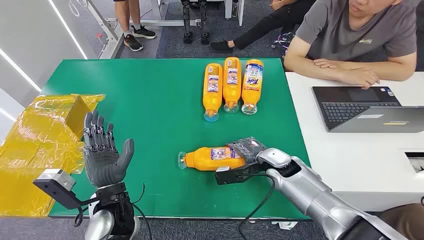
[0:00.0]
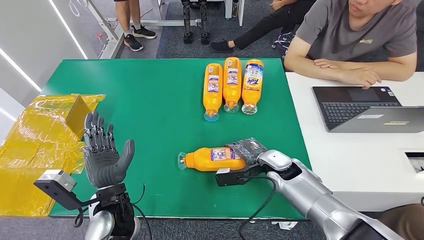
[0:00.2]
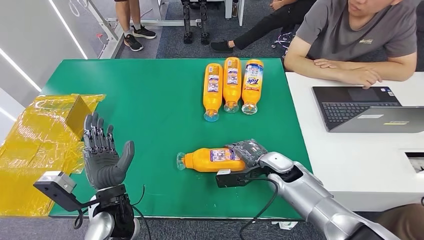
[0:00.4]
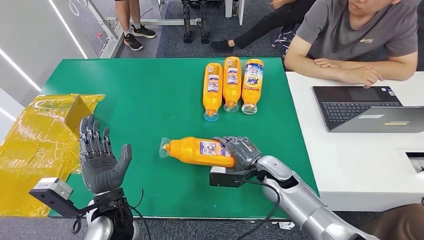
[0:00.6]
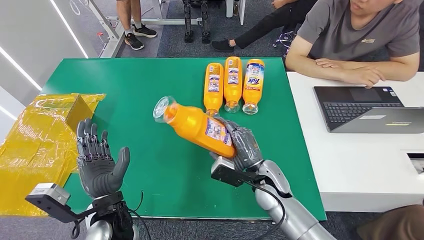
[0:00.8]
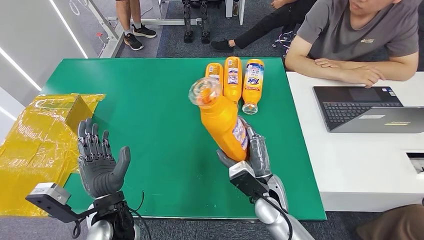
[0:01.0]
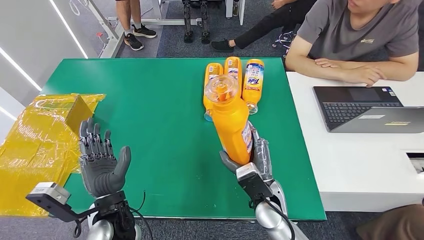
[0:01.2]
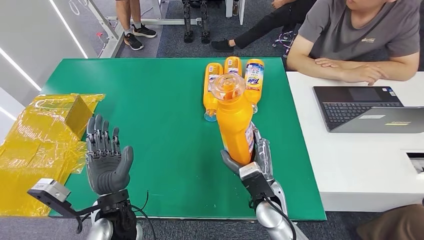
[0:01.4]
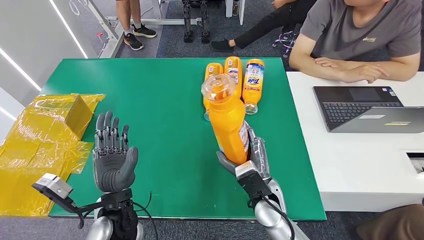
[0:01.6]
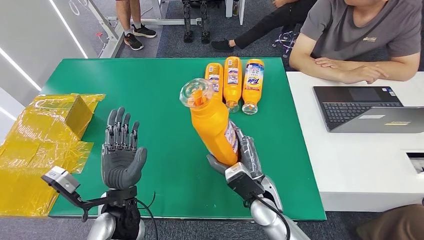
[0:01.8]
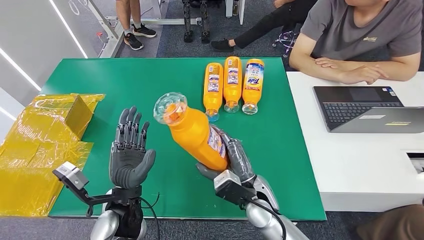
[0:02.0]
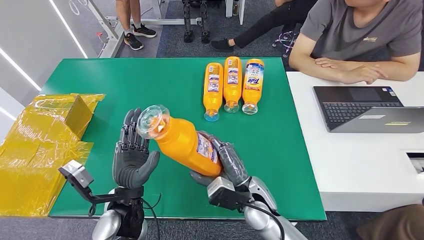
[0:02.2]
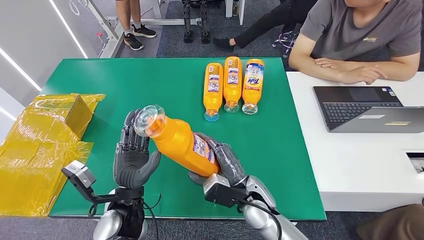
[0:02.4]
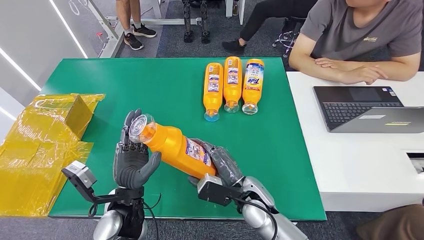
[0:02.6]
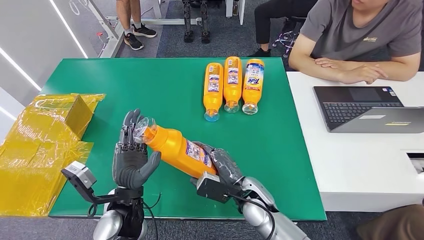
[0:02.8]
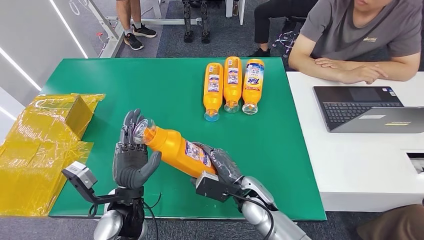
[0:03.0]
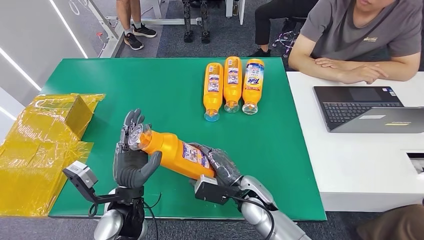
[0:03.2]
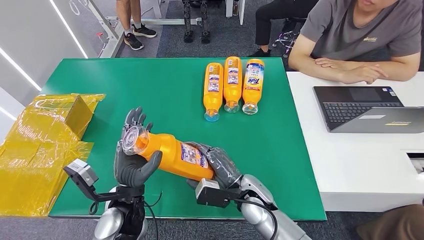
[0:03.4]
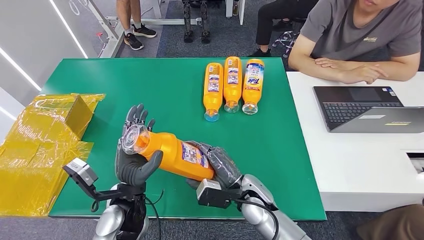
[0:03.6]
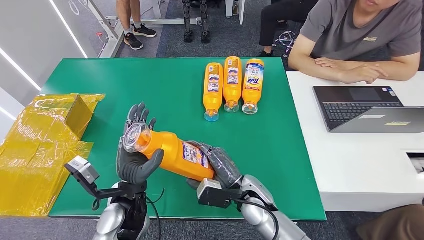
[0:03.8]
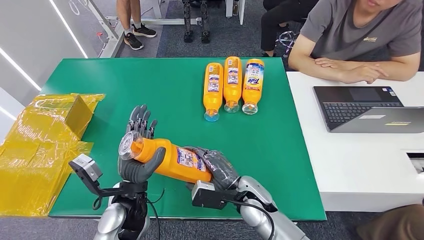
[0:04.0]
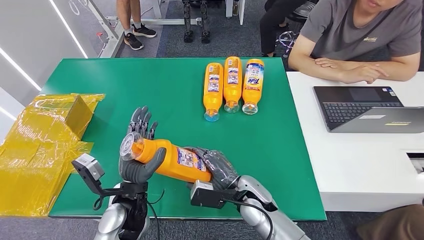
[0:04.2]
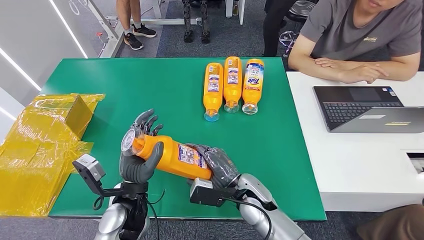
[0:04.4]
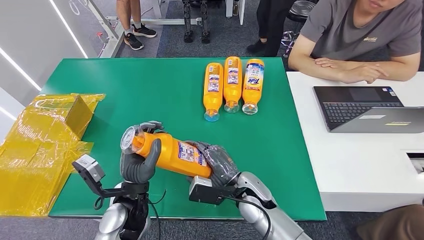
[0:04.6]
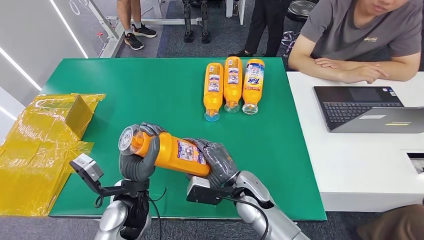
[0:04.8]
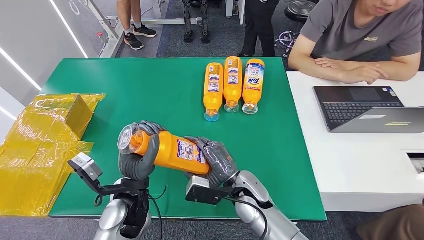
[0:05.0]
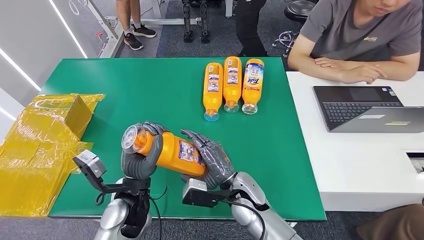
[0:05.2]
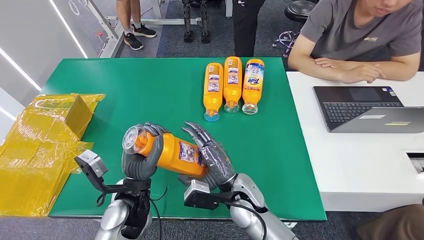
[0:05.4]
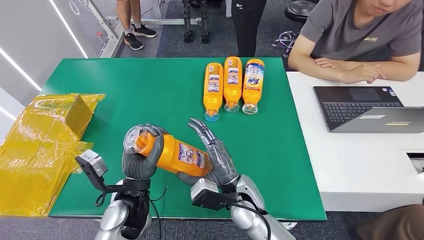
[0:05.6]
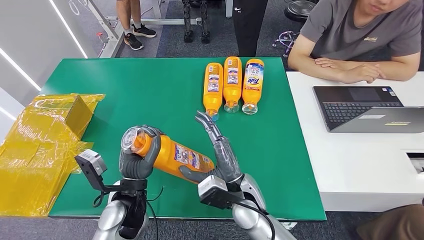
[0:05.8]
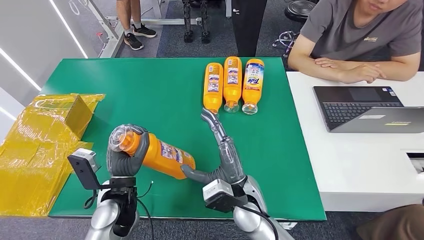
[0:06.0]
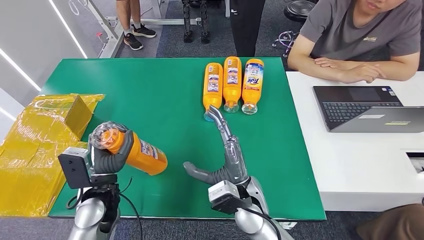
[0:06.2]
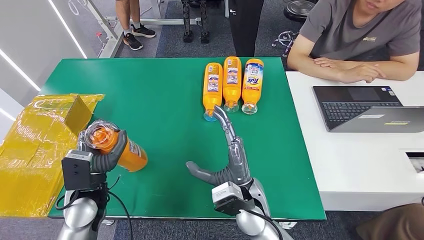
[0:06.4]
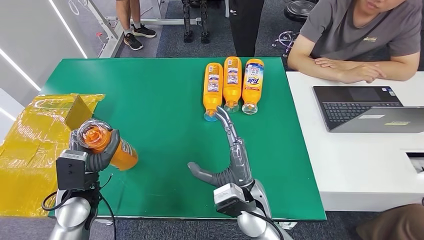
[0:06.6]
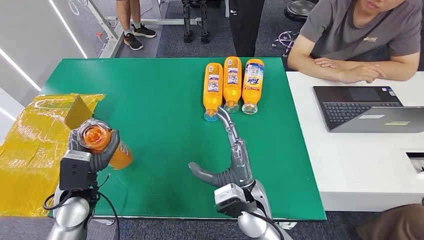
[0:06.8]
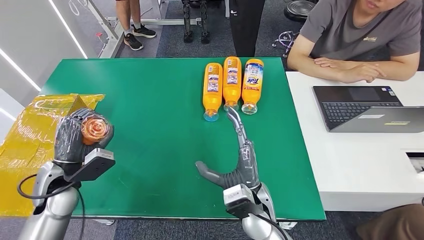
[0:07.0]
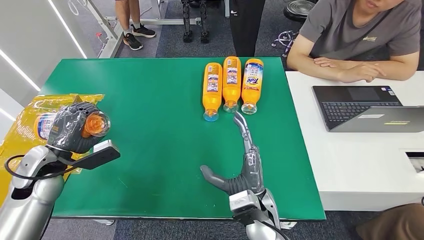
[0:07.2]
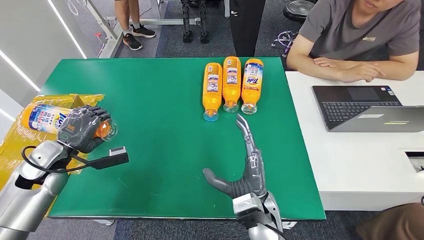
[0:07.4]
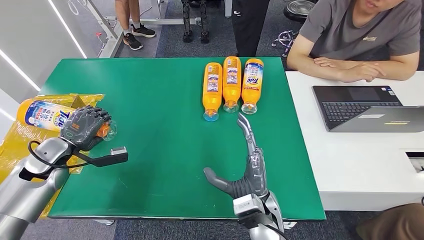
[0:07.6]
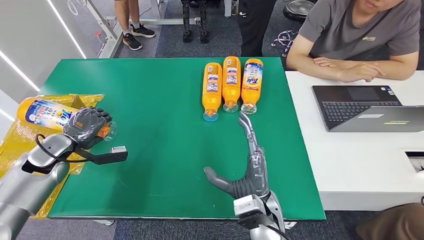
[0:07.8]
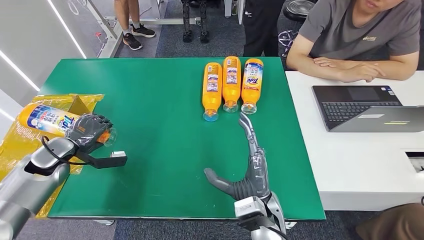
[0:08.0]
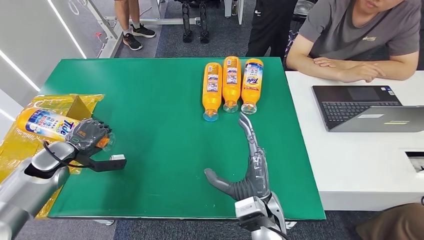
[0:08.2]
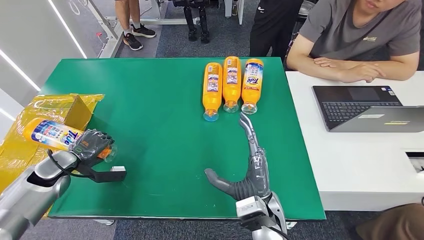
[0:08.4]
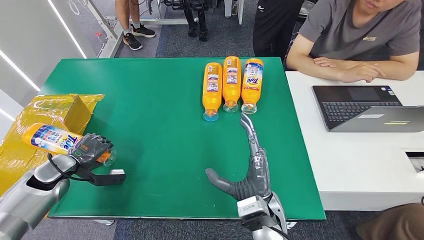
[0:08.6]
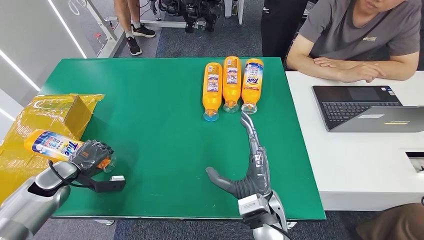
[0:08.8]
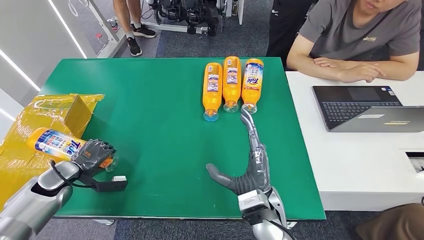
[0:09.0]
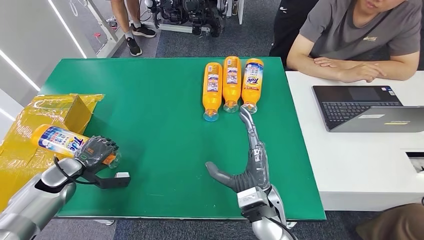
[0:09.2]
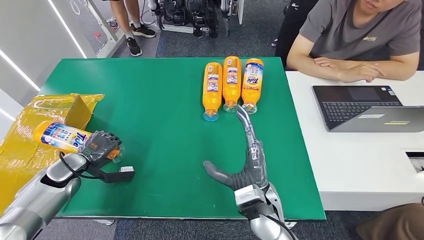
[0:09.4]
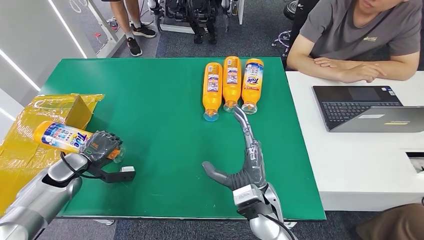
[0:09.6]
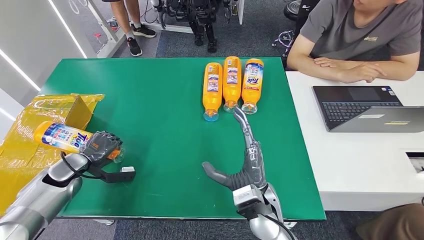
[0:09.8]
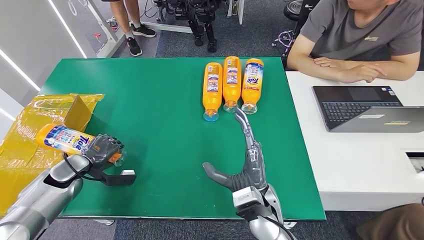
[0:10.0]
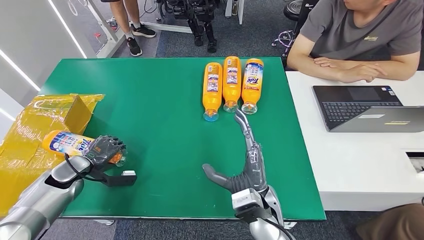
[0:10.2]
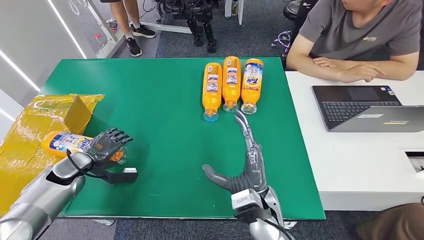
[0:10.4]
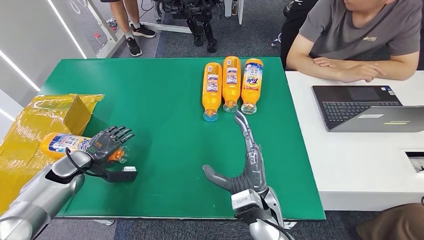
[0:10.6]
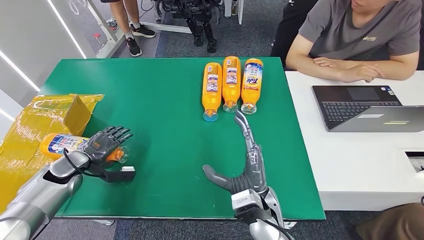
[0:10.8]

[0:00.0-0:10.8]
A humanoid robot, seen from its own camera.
Step, 0:00.0 to 0:03.0: Pick up the bottle from the table.
0:03.0 to 0:04.6: The hands stay close to where they were, moving slightly.
0:04.6 to 0:06.2: The left hand heads to the left, covering roughly 5 cm; the right hand shifts by some 5 cm.
0:07.8 to 0:09.2: The left hand goes about 5 cm downward.
0:09.2 to 0:10.8: The hands make only small movements.

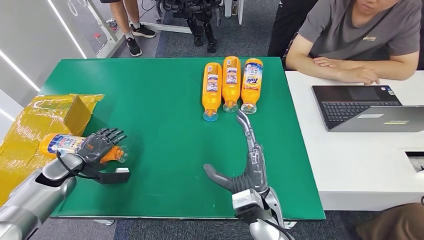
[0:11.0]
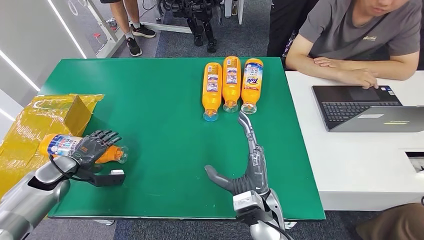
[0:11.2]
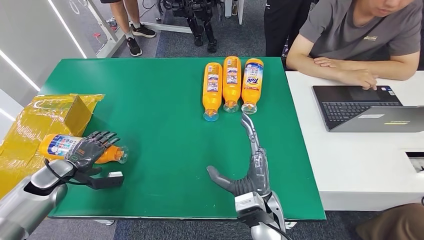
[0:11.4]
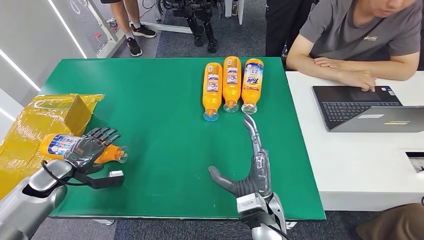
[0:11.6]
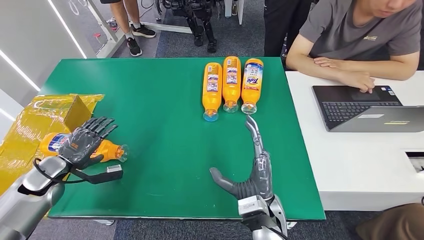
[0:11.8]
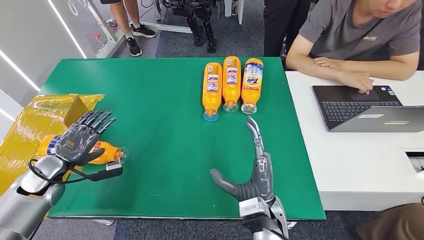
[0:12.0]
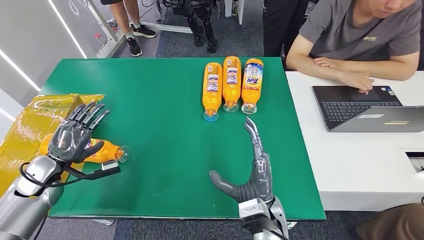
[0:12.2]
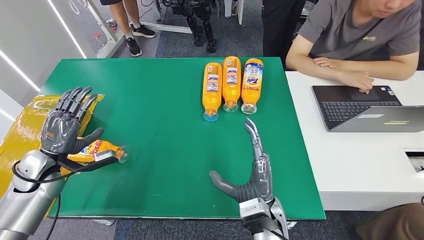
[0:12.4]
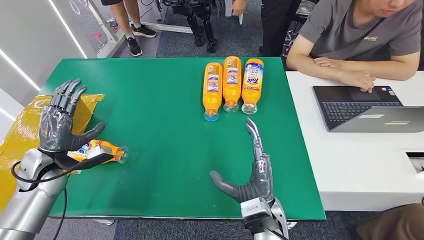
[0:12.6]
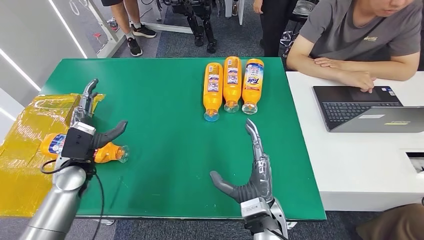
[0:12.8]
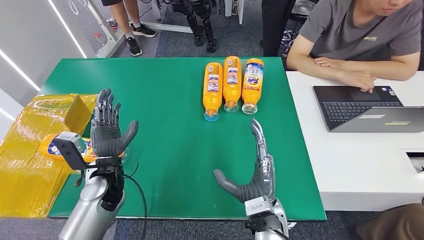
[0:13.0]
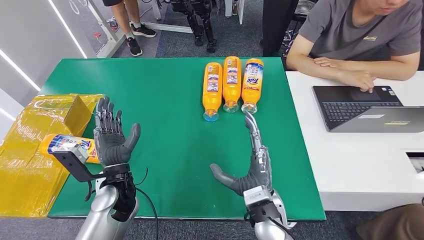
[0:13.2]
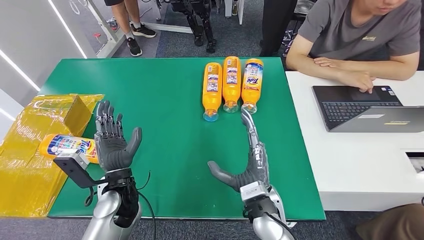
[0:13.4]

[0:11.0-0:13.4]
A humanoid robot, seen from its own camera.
Step, 0:11.0 to 0:13.4: Turn the bottle to the front side.
0:11.0 to 0:12.2: The left hand changes place by about 5 cm.
0:12.2 to 0:13.4: The left hand is displaced to the right by some 25 cm.

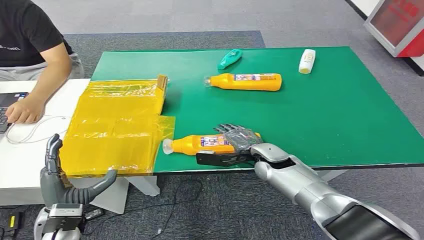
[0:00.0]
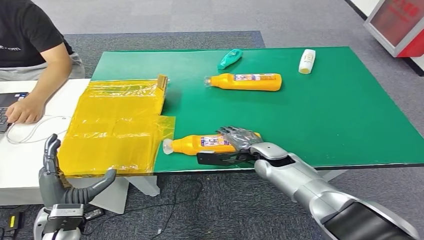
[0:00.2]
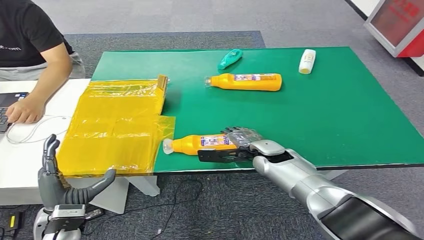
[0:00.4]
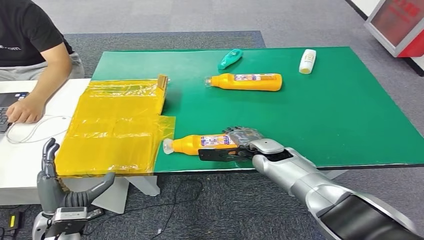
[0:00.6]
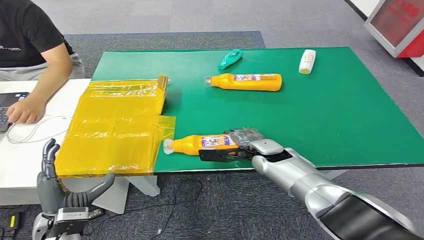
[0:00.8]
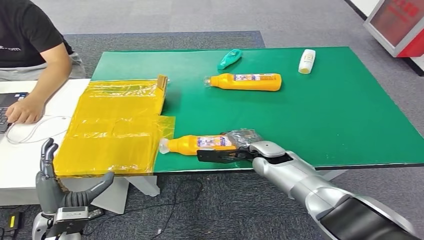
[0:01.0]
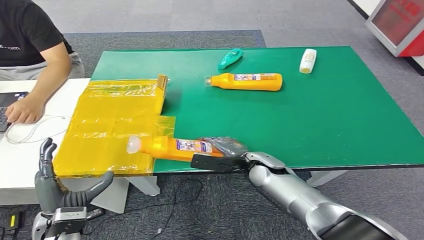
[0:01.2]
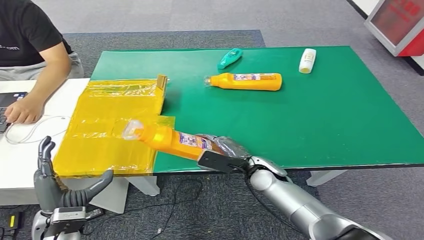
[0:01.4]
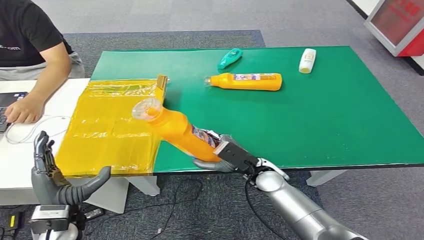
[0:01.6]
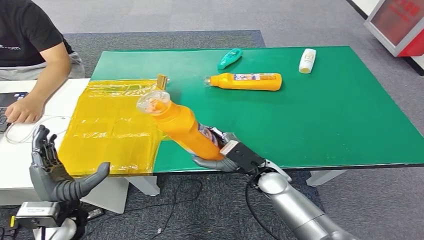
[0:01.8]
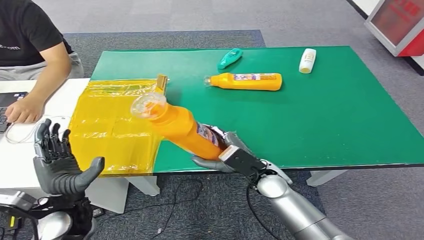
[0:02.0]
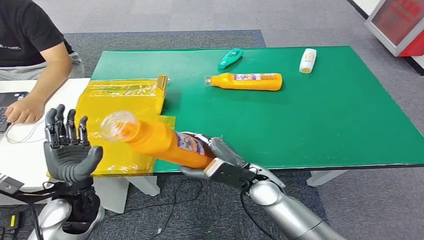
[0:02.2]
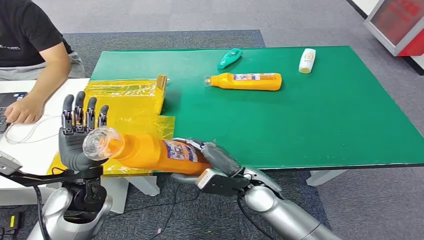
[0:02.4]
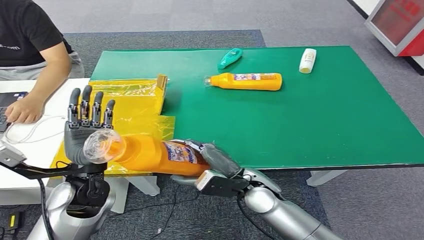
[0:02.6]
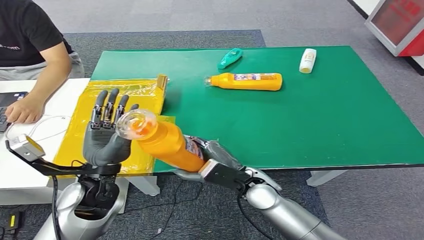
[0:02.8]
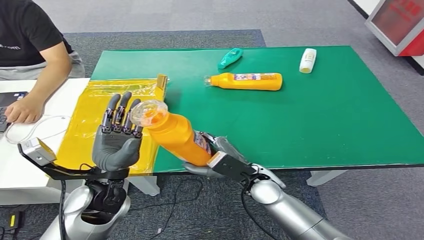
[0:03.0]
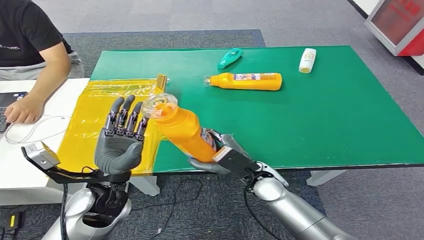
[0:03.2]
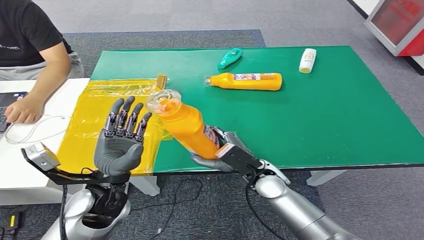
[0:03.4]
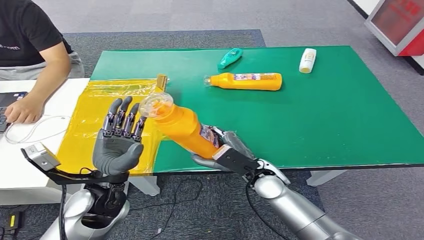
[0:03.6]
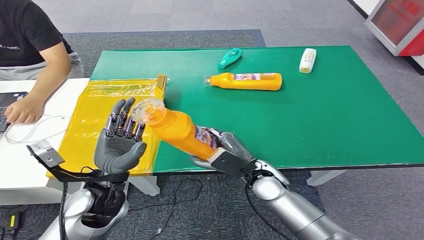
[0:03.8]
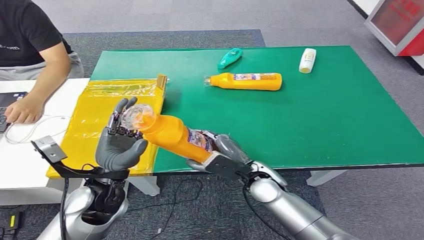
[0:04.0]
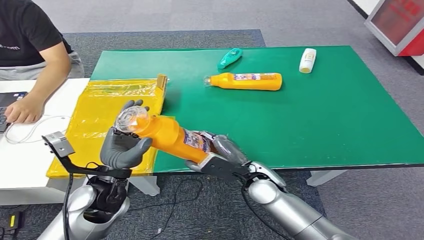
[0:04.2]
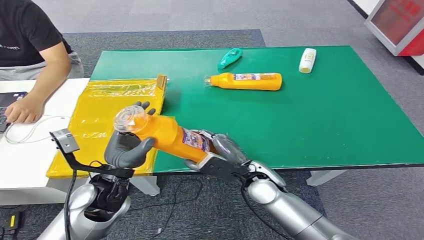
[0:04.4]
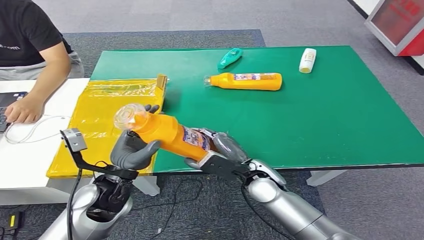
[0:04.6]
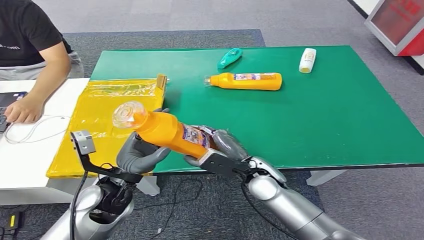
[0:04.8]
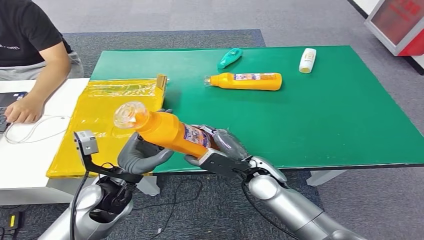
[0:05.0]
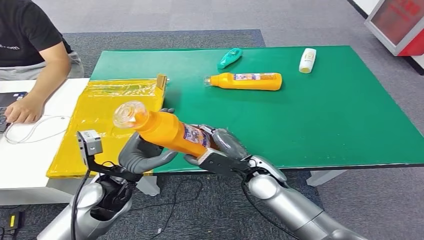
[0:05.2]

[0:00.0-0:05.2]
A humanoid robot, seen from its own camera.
Step, 0:00.0 to 0:02.0: Pick up the bottle from the table.
0:01.8 to 0:03.4: The left hand travels to the right and upward by roughly 10 cm.
